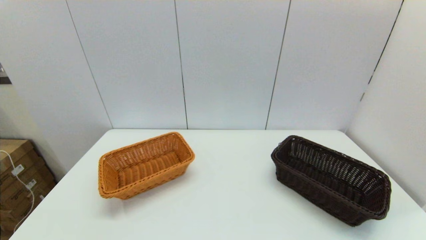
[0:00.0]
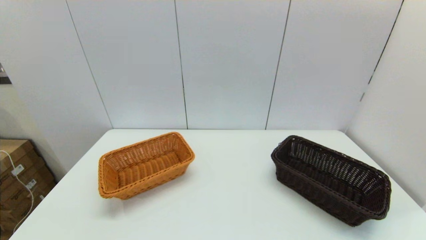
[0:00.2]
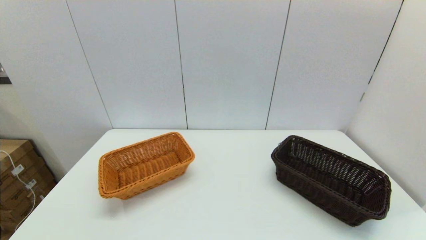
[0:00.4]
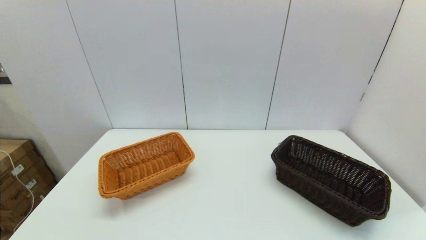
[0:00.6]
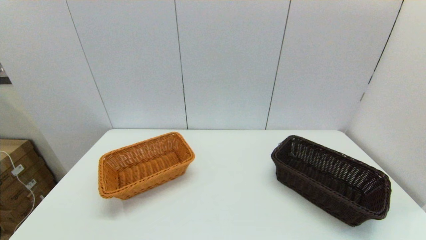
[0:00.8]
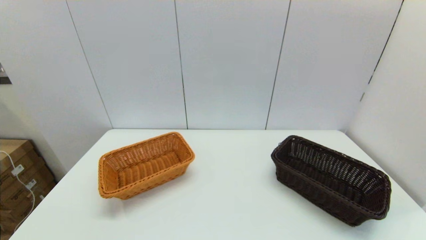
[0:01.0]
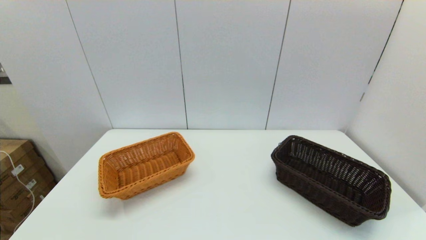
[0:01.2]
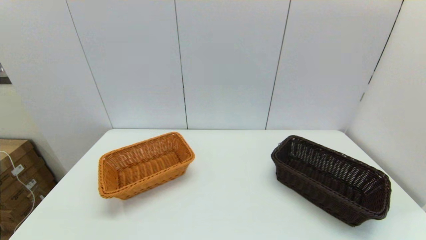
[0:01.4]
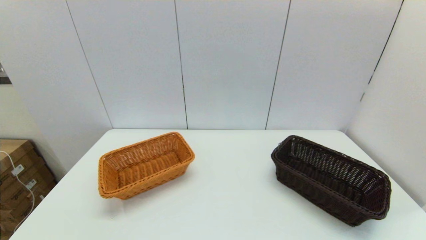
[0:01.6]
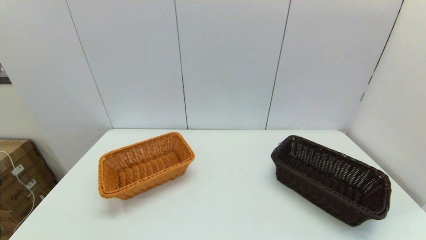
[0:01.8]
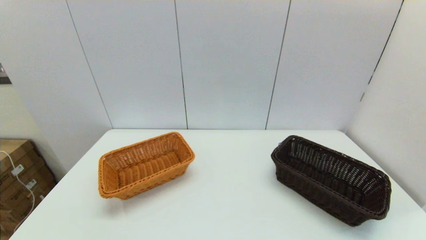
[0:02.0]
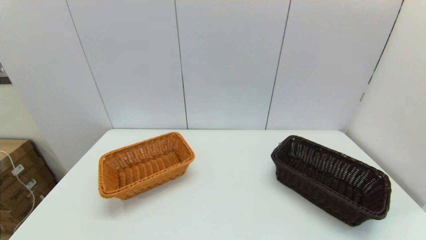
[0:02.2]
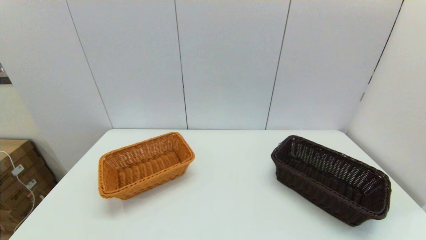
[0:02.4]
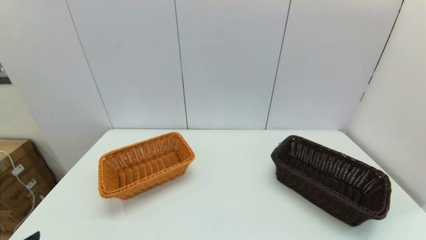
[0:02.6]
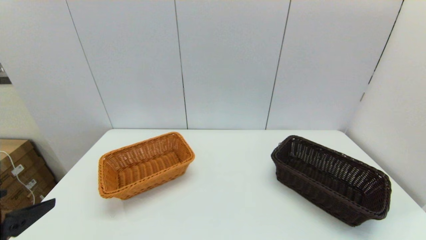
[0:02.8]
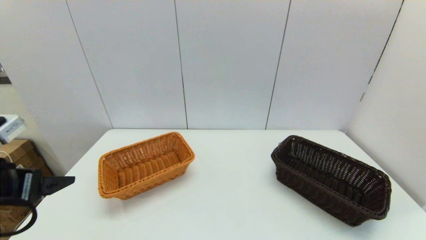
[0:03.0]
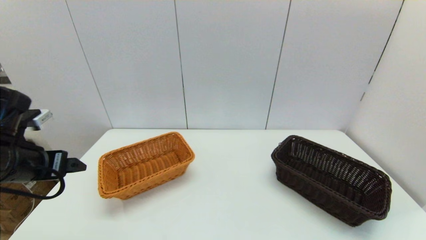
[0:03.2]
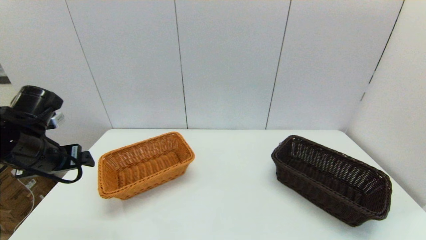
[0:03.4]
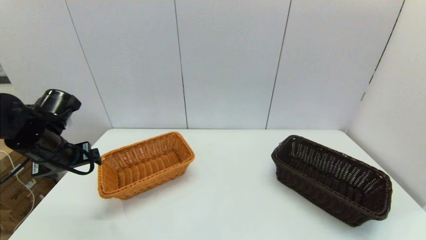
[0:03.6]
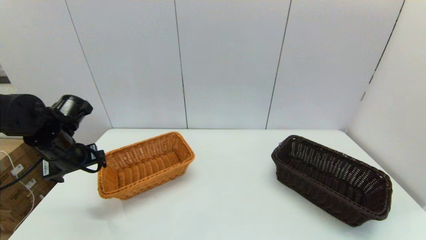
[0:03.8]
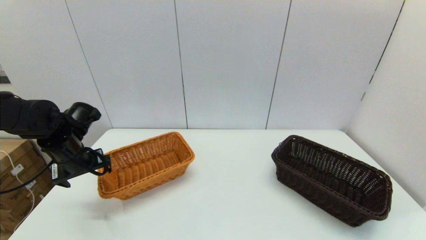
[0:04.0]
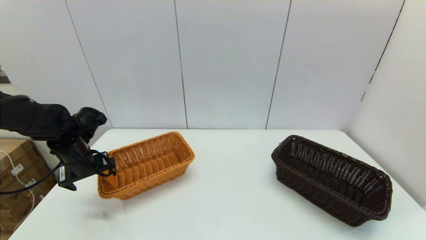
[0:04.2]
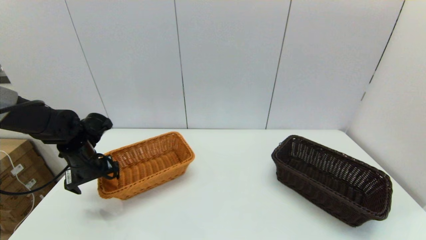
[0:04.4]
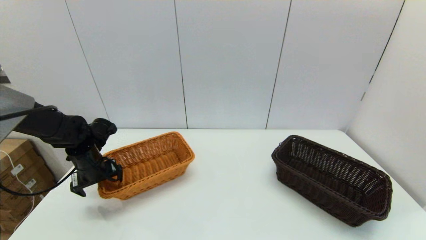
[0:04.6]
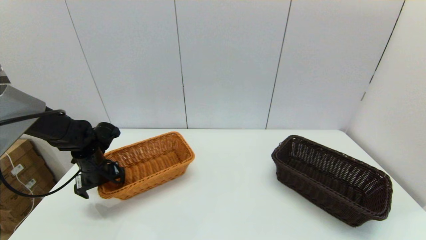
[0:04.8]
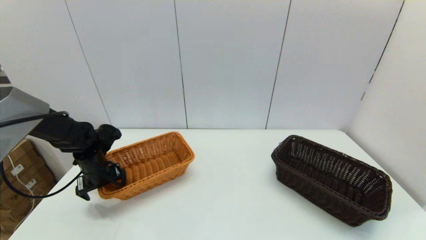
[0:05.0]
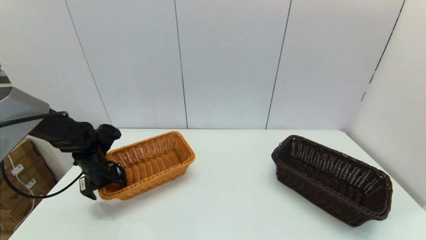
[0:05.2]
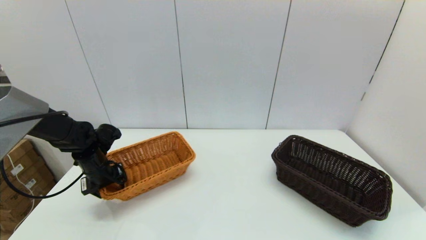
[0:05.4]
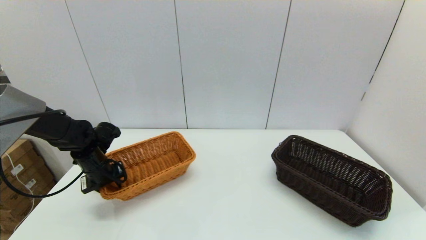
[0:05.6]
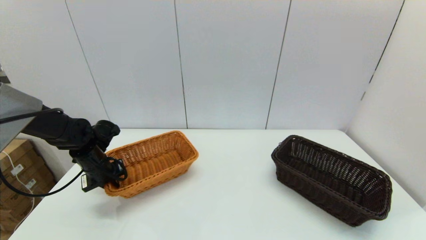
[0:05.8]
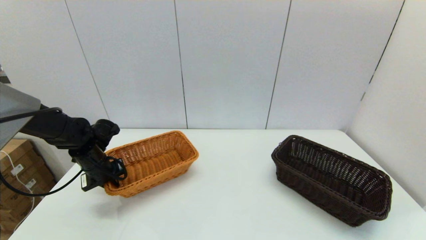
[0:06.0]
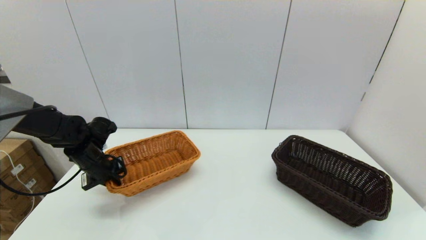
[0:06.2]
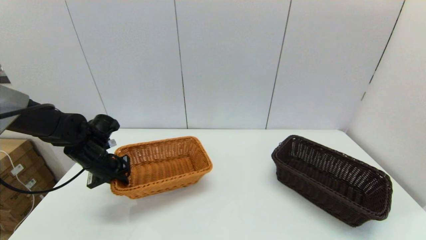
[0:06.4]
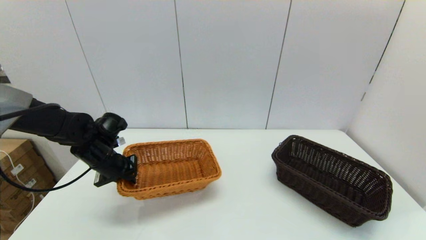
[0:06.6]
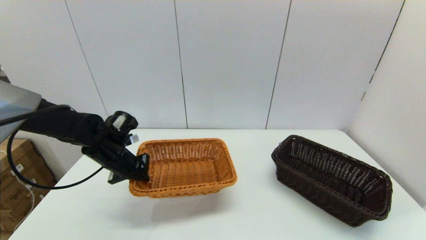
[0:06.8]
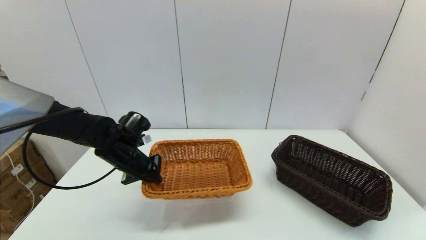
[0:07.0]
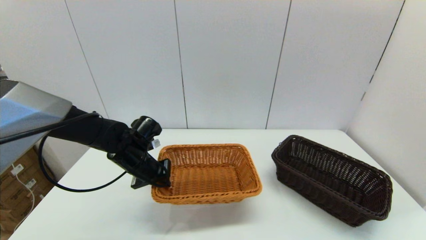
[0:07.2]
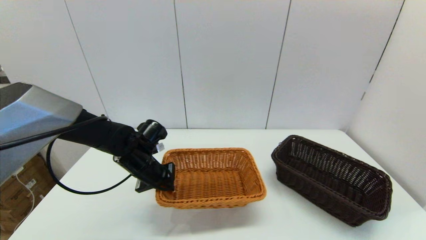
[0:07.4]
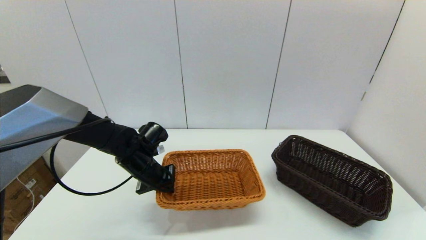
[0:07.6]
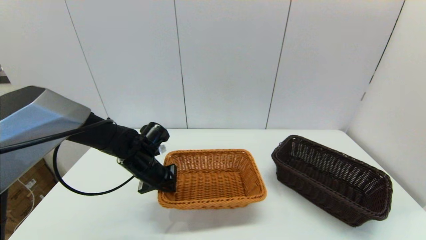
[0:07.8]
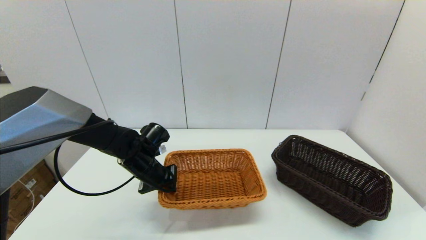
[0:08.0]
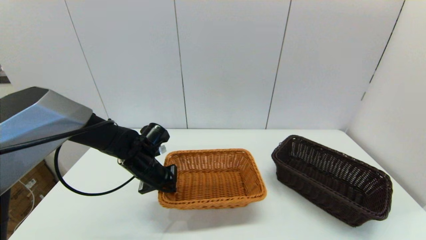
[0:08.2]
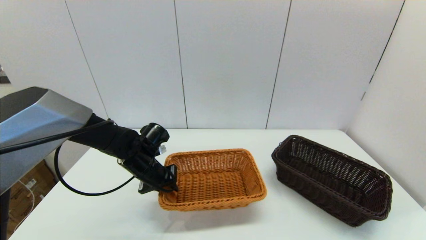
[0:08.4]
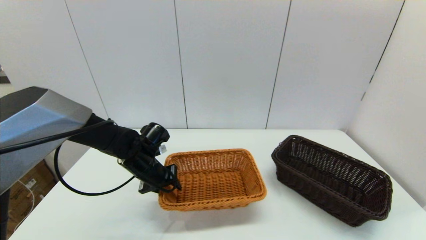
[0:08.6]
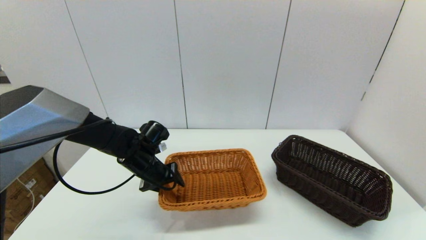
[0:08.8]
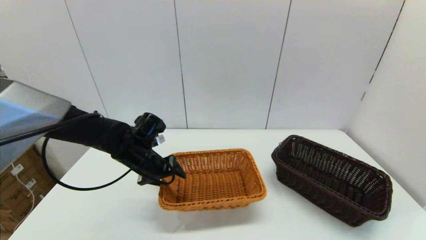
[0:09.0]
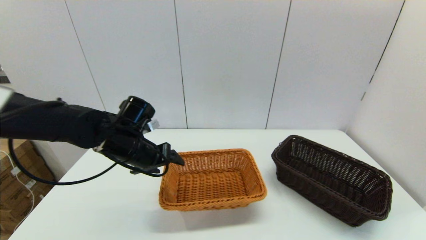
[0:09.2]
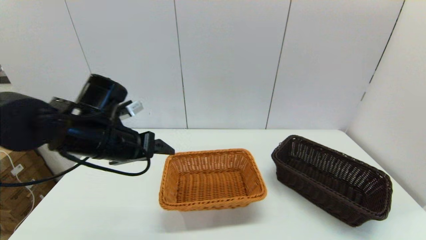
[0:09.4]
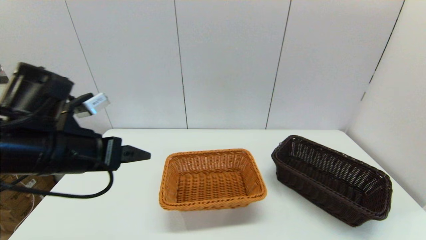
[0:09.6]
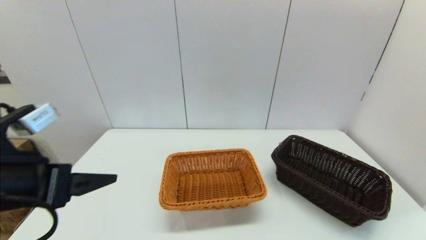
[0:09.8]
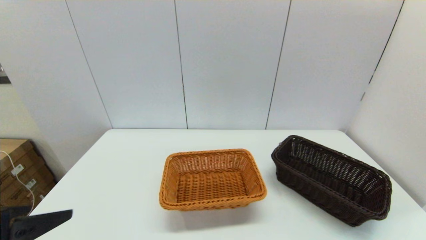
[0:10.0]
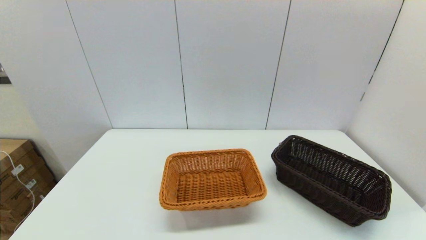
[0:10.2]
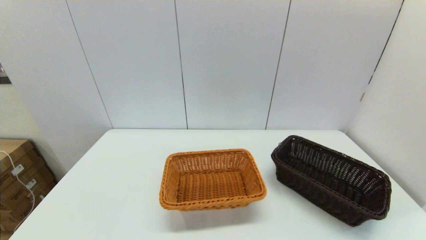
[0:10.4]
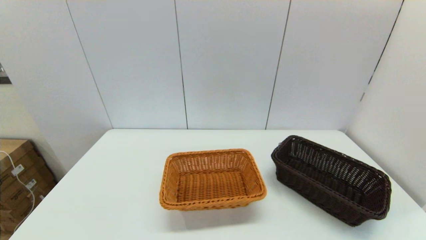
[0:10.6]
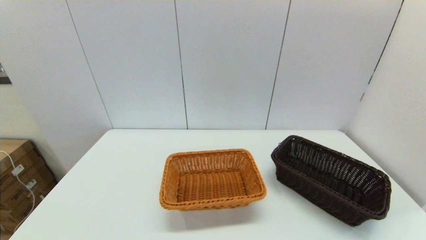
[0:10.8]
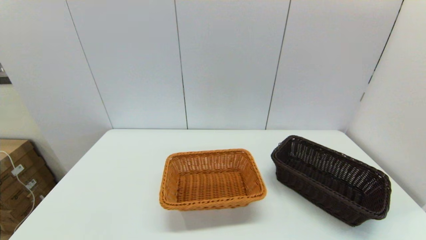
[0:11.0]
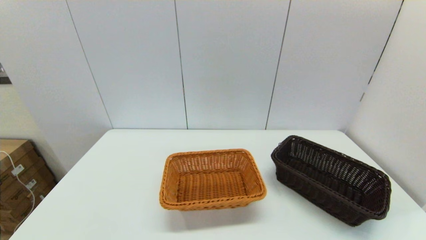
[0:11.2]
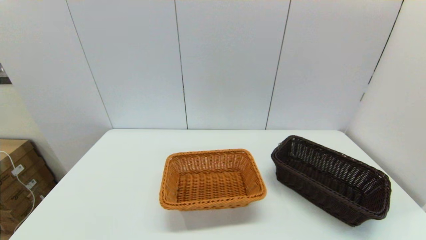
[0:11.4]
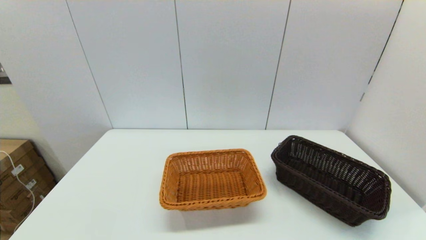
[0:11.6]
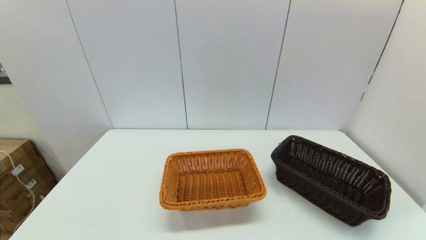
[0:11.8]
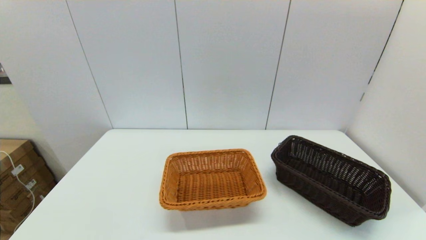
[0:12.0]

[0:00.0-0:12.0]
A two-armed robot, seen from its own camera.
Task of the whole recording: stack a basket on top of another basket.
Step, 0:02.6 to 0:05.8: Grasp the light basket with the left gripper.
Step, 0:06.0 to 0:08.8: Place the light basket on the middle of the table with the left gripper.
0:01.6 to 0:03.0: The left gripper goes approximately 25 cm forward and upward.
0:03.0 to 0:04.4: The left gripper shifts some 20 cm forward and downward.
0:04.4 to 0:06.0: The left gripper closes.
0:06.0 to 0:07.6: The left gripper moves to the right, some 15 cm.
0:07.6 to 0:09.0: The left gripper opens.
0:09.0 to 0:10.4: The left gripper goes roughly 35 cm backward and to the left.

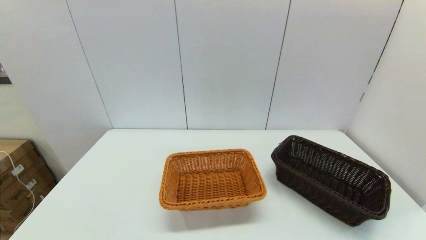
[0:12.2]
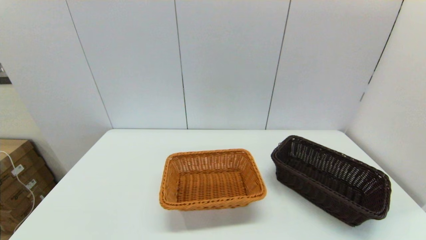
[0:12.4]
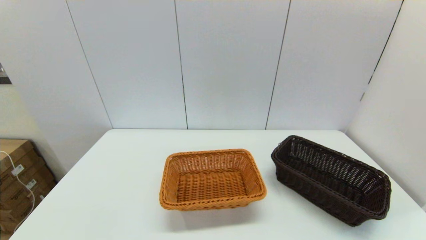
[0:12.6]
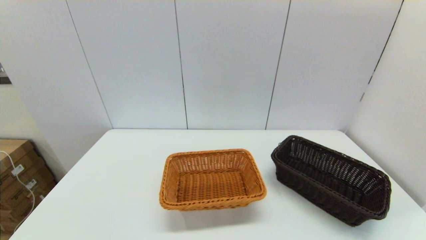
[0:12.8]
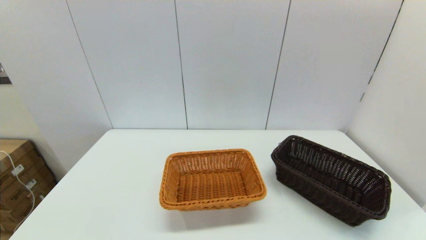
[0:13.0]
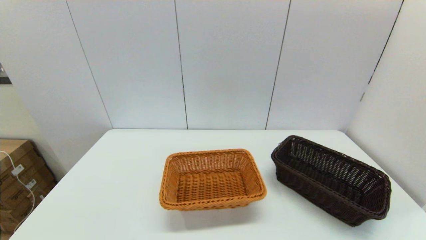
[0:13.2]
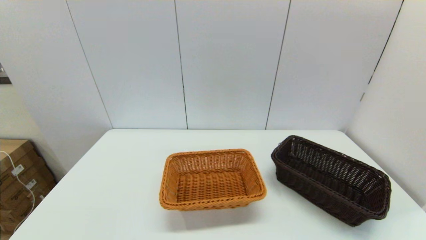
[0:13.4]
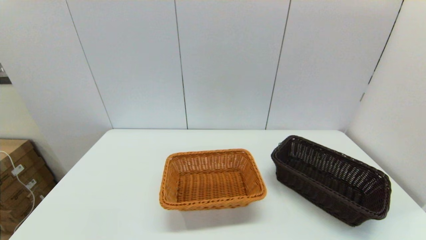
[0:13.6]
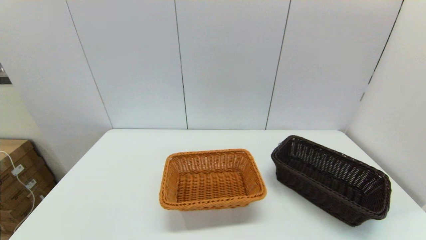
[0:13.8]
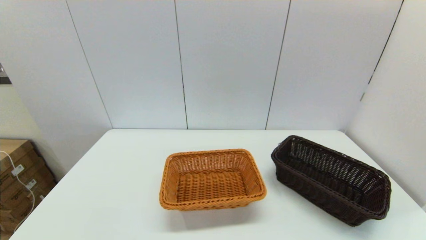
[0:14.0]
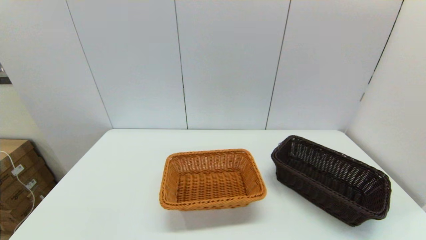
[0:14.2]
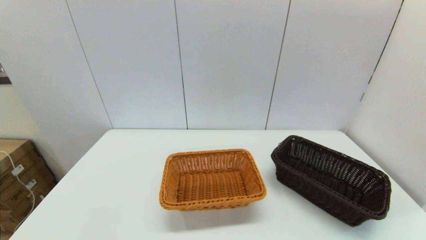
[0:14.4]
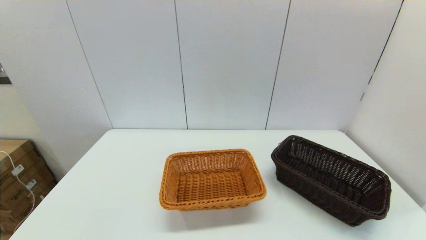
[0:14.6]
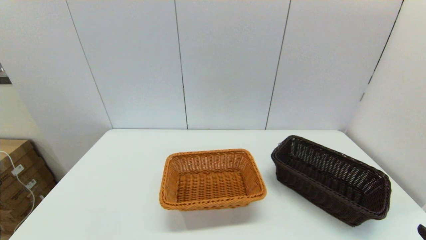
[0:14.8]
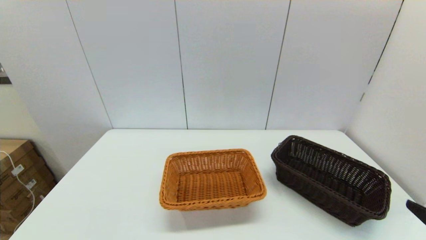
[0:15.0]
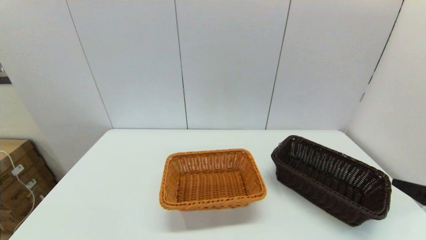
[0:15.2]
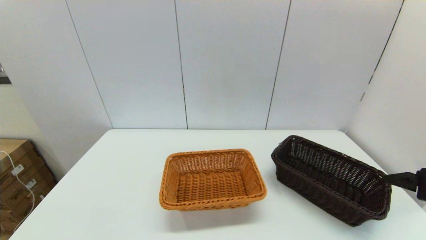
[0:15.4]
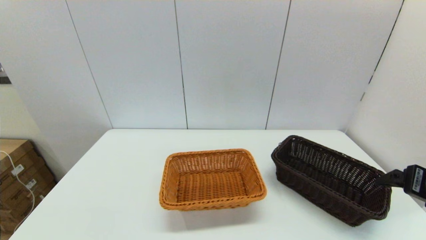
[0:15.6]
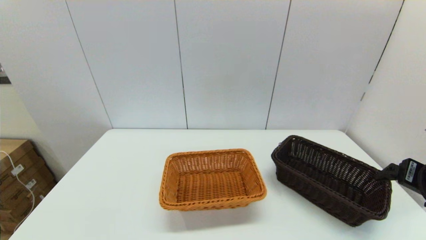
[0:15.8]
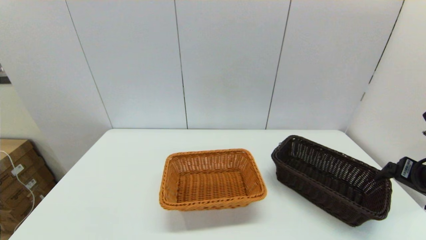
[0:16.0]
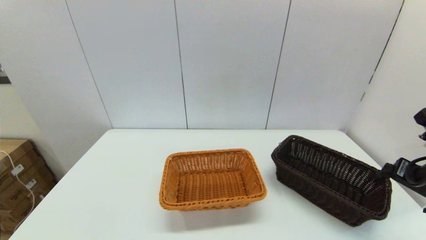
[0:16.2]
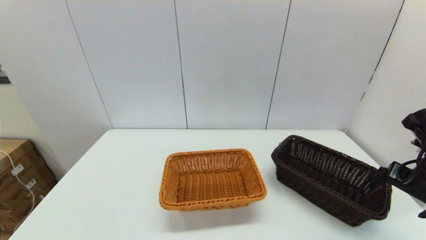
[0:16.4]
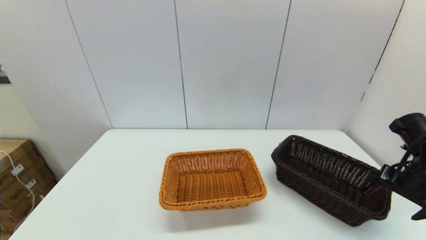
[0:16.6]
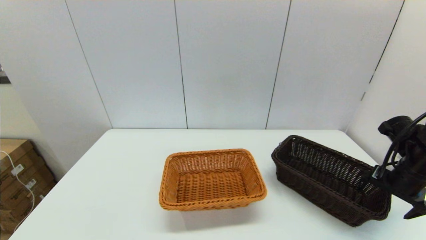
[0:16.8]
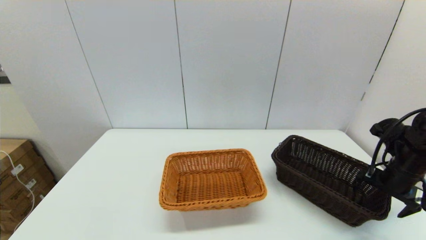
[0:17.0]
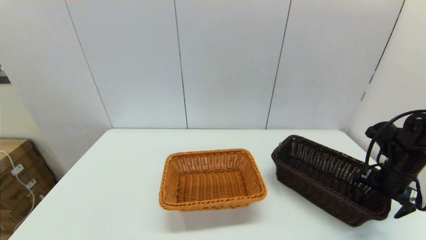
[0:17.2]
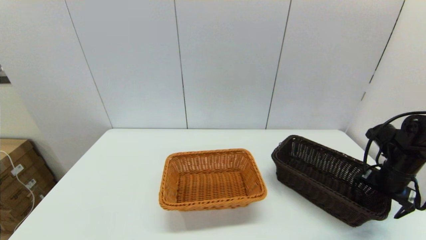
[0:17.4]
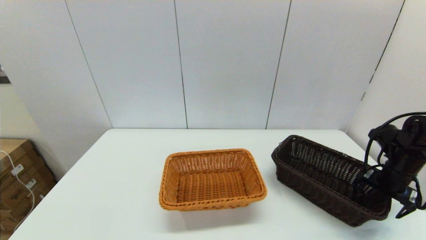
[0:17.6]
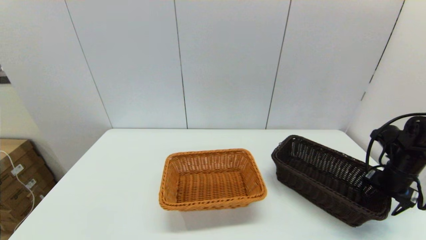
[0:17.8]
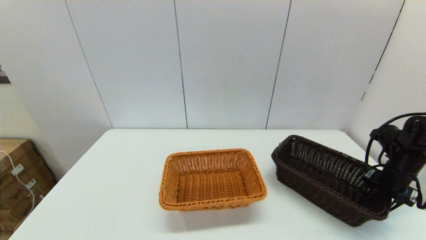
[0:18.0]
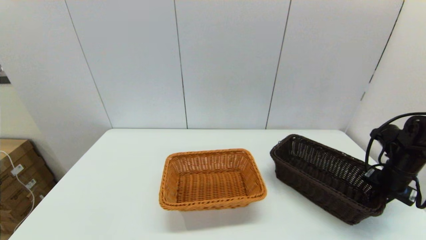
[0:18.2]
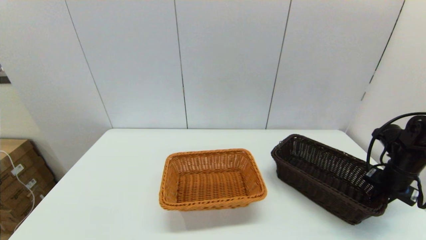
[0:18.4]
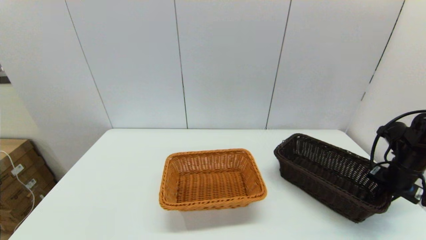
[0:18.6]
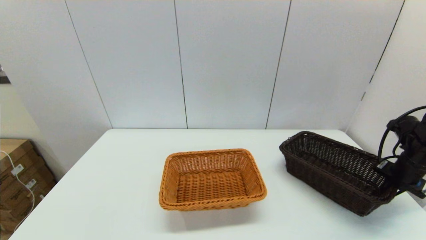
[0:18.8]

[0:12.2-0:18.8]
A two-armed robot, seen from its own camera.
Task of the whole recording: stack a basket on top of another basket.
Step, 0:12.2 to 0:18.2: Grasp the dark basket with the right gripper.
0:13.8 to 0:15.4: The right gripper travels forward and upward by about 20 cm.
0:15.4 to 0:17.2: The right gripper moves forward and downward, roughly 20 cm.
0:17.2 to 0:18.8: The right gripper heads to the right, covering some 5 cm, and closes up.
